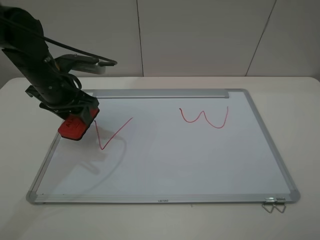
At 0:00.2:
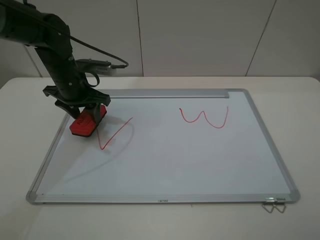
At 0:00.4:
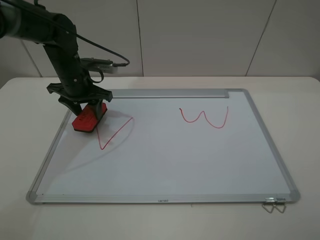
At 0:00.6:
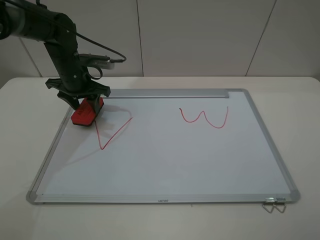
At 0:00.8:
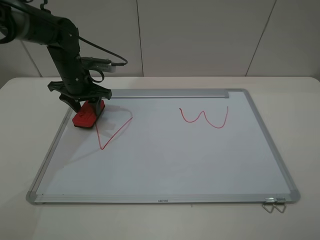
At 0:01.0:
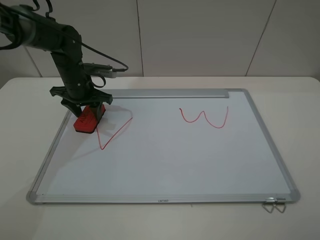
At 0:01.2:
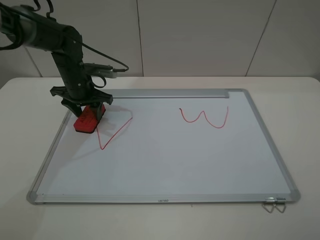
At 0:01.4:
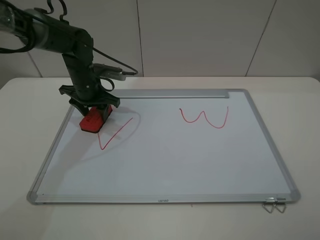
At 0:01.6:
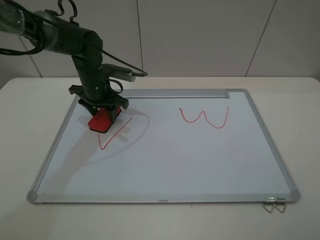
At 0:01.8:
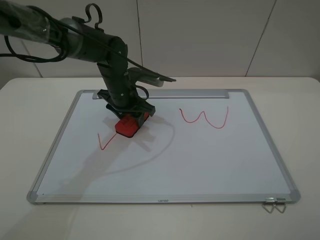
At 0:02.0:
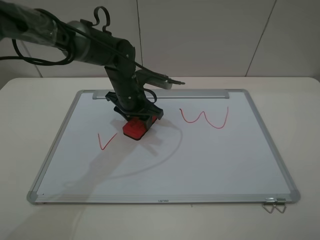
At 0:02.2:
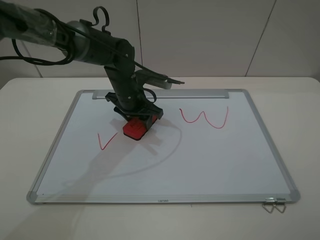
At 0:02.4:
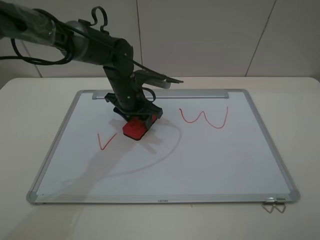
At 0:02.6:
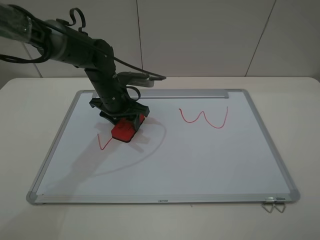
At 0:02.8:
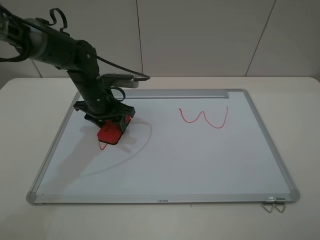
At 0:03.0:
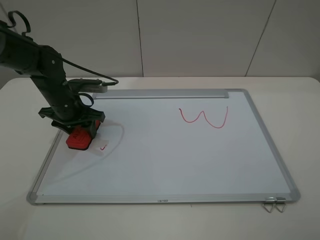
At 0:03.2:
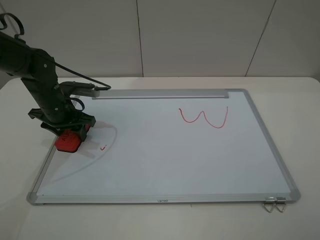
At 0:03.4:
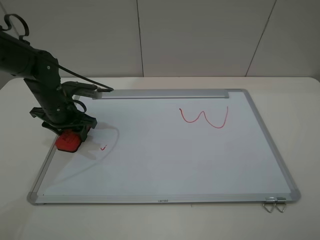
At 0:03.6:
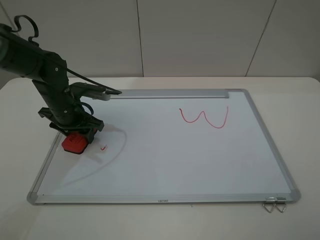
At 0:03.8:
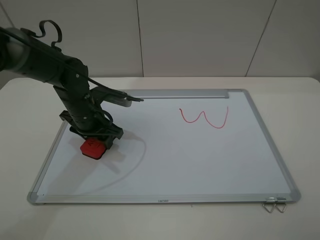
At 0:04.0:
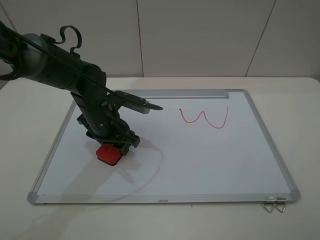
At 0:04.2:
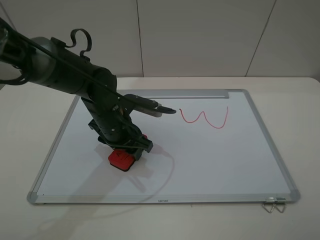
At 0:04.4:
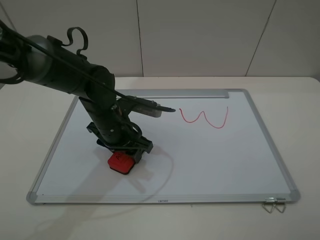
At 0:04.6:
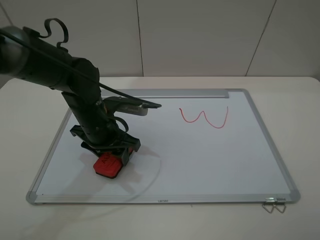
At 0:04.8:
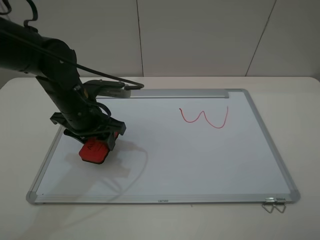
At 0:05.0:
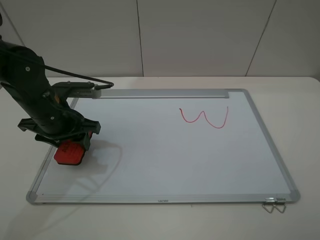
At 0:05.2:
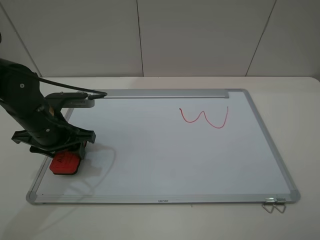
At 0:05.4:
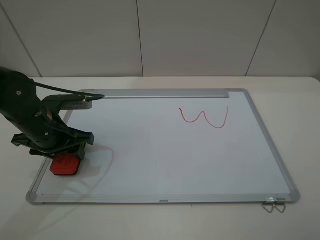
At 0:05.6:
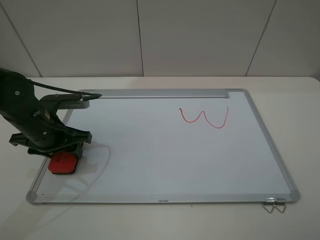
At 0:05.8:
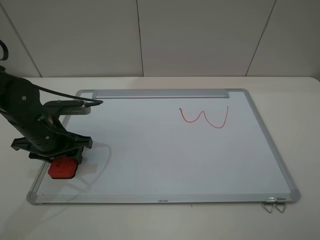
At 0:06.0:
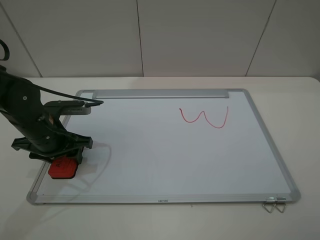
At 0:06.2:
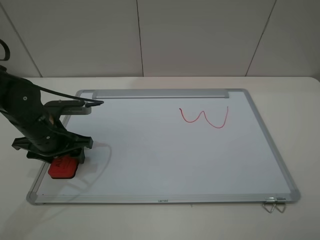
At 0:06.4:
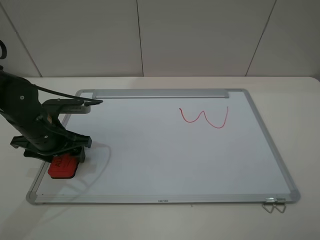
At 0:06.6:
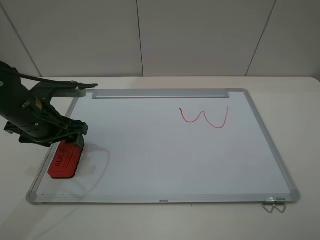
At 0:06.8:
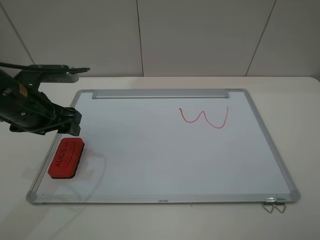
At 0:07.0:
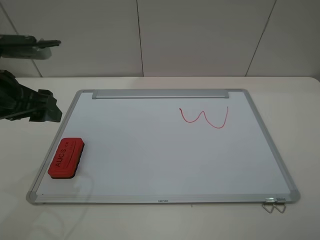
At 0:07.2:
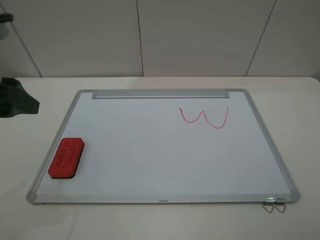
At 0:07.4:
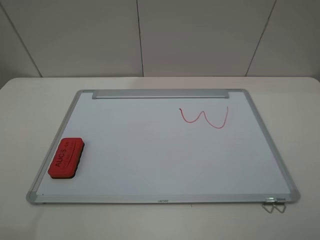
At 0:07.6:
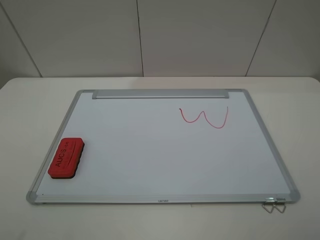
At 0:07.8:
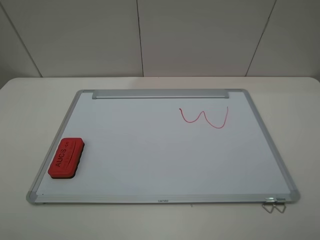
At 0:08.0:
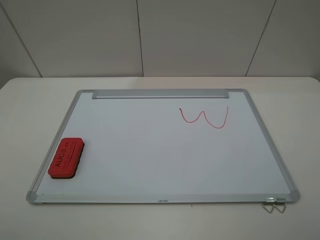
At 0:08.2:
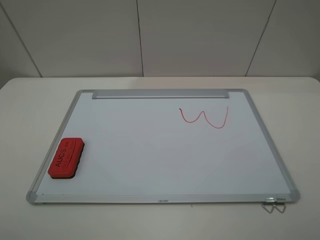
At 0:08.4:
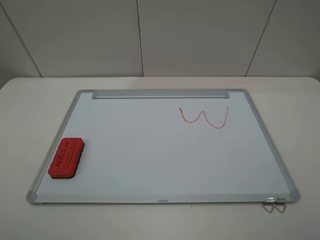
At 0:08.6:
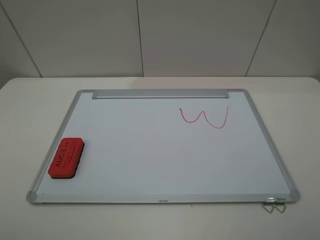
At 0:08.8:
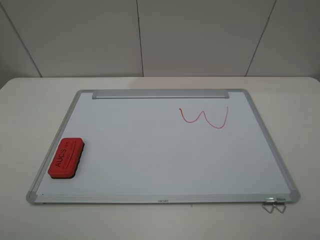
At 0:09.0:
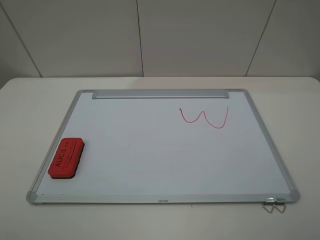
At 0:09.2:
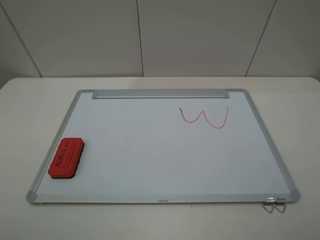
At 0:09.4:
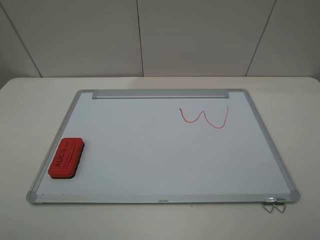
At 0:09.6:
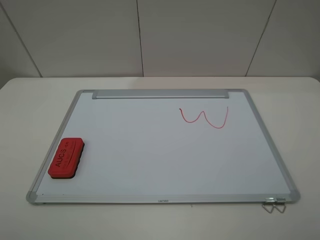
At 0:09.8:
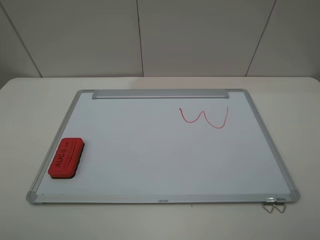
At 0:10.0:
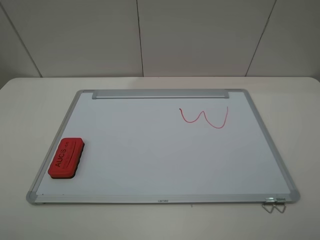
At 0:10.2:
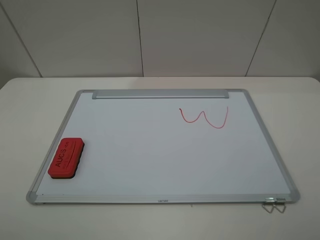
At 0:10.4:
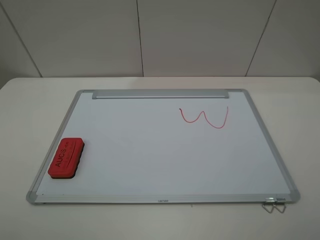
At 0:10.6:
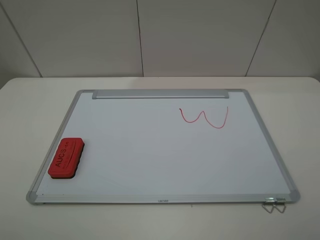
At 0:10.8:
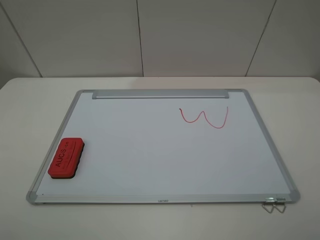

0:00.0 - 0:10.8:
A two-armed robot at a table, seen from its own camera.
Step, 0:00.0 - 0:04.8: Grasp the eraser and wipe the blackboard with the left gripper.
Step, 0:05.0 - 0:06.4: Place the eraser with the left gripper.
0:00.0 - 0:01.6: The left gripper goes approximately 10 cm downward, forward and to the right.
0:01.6 - 0:03.0: The left gripper goes approximately 10 cm to the left and backward.
0:03.0 - 0:04.6: The left gripper travels to the right and backward by some 10 cm.
0:04.6 - 0:06.2: The left gripper travels to the left by approximately 10 cm, and opens up.
0:06.2 - 0:07.8: The left gripper goes about 30 cm backward and upward.
